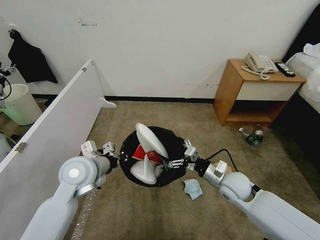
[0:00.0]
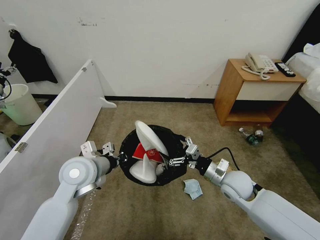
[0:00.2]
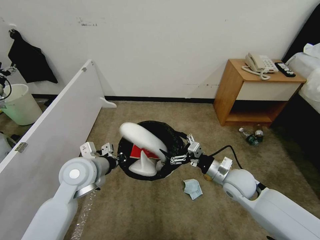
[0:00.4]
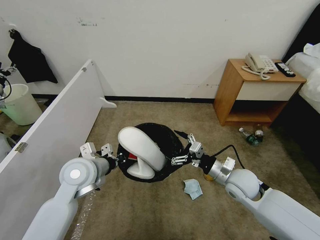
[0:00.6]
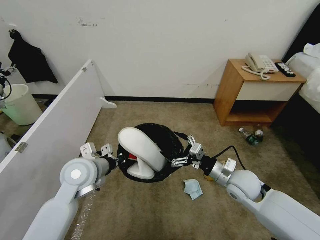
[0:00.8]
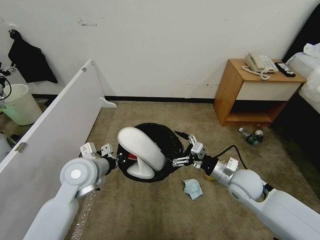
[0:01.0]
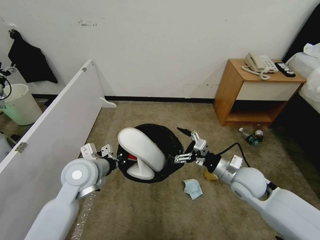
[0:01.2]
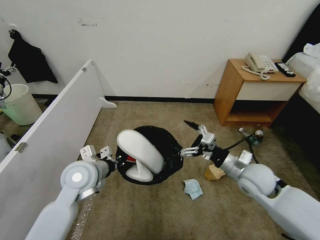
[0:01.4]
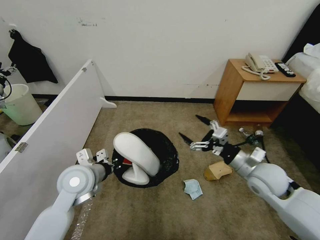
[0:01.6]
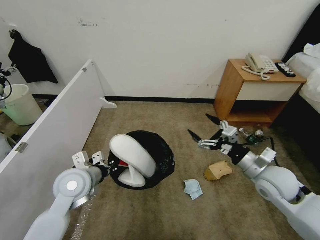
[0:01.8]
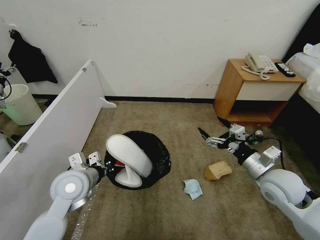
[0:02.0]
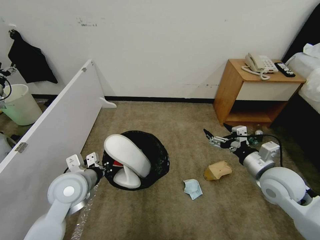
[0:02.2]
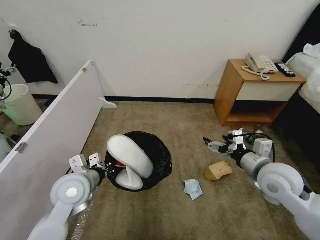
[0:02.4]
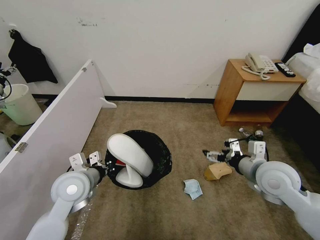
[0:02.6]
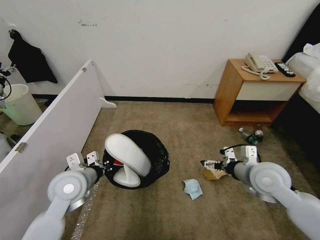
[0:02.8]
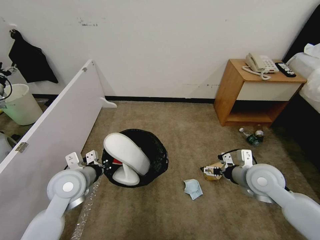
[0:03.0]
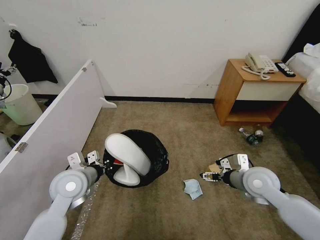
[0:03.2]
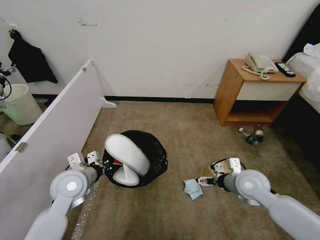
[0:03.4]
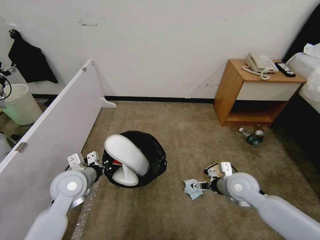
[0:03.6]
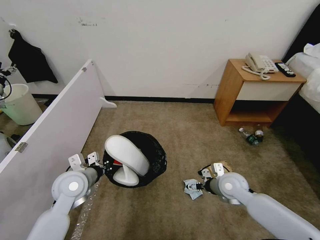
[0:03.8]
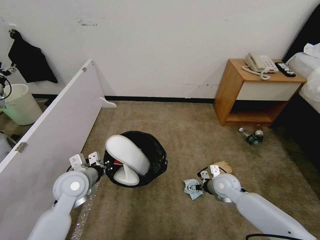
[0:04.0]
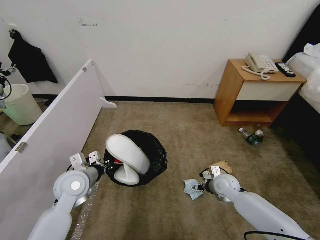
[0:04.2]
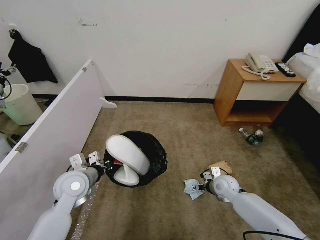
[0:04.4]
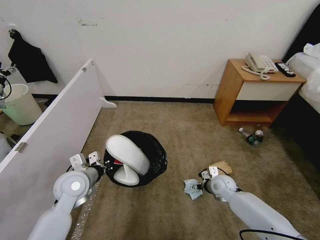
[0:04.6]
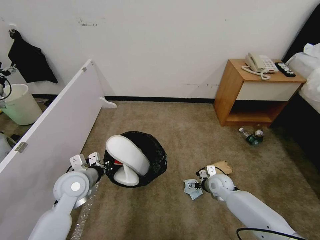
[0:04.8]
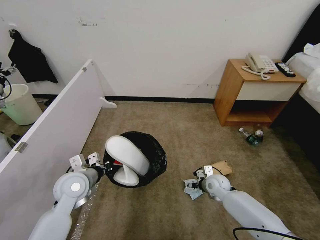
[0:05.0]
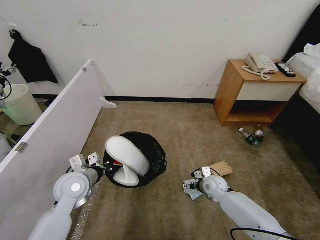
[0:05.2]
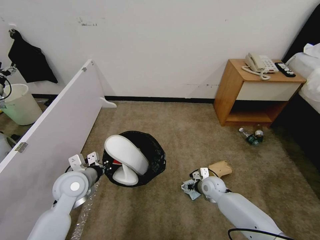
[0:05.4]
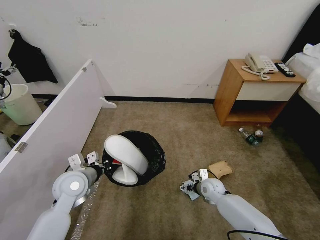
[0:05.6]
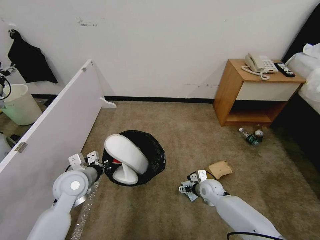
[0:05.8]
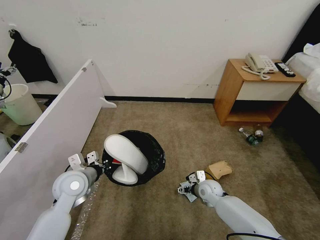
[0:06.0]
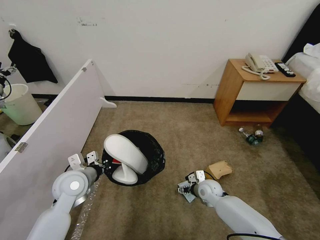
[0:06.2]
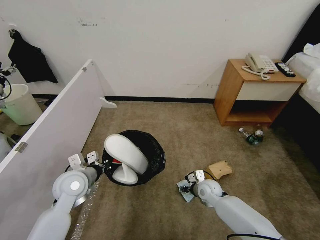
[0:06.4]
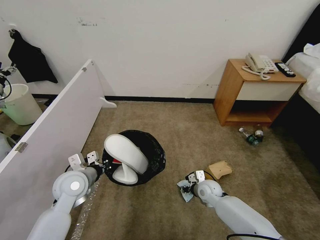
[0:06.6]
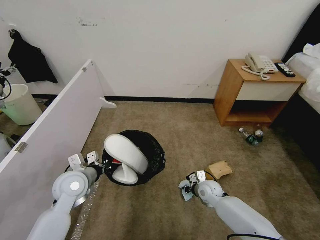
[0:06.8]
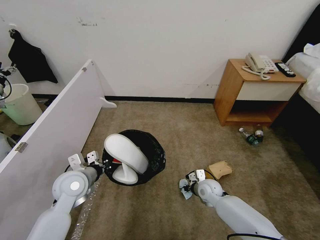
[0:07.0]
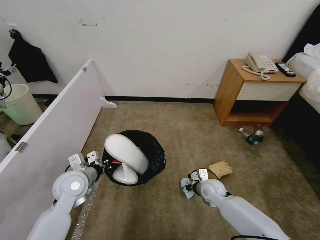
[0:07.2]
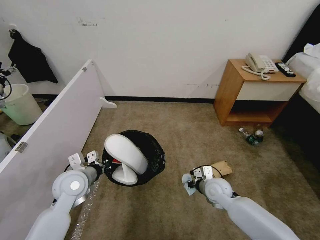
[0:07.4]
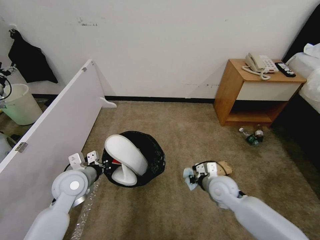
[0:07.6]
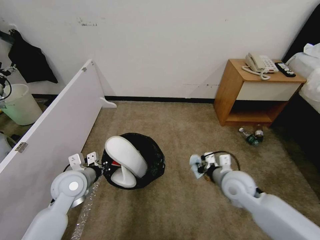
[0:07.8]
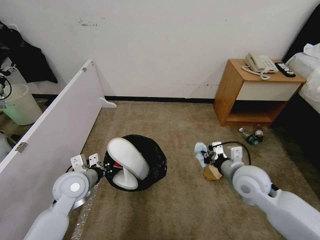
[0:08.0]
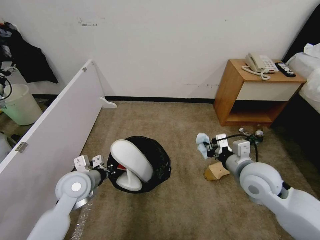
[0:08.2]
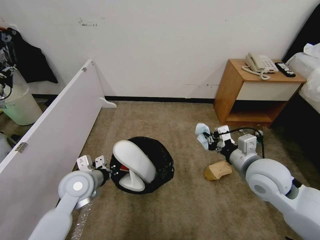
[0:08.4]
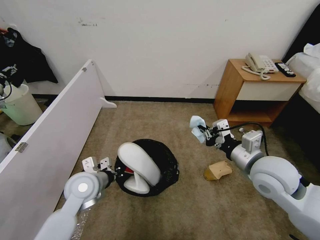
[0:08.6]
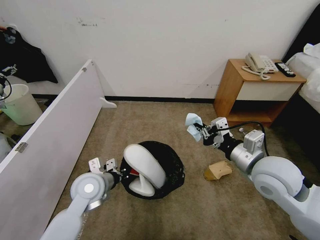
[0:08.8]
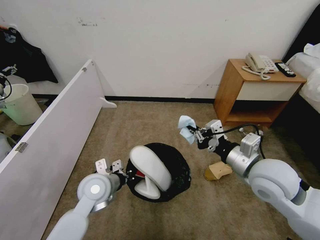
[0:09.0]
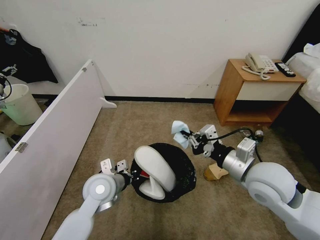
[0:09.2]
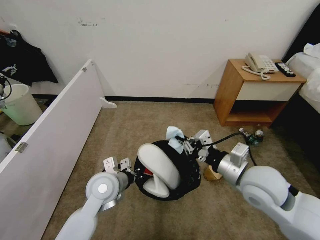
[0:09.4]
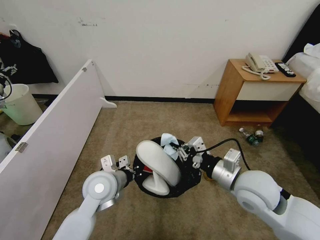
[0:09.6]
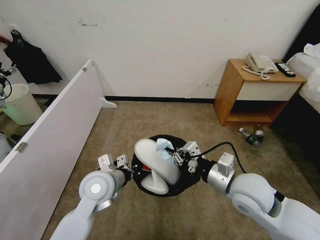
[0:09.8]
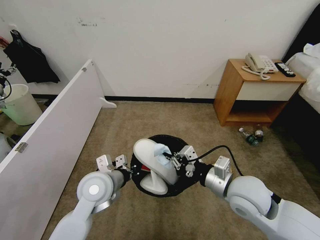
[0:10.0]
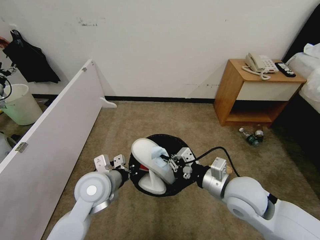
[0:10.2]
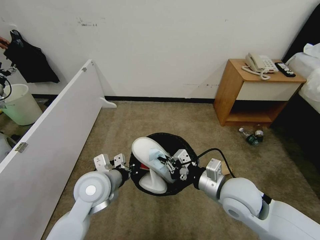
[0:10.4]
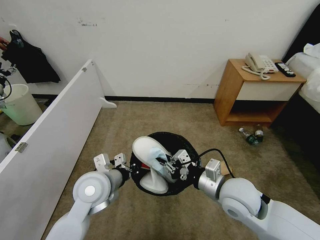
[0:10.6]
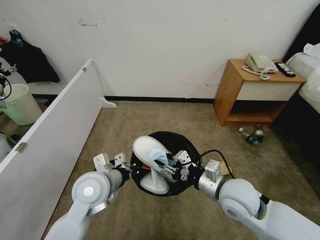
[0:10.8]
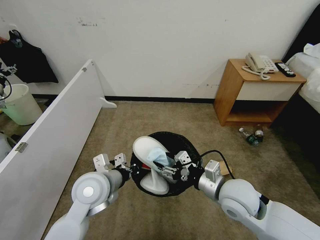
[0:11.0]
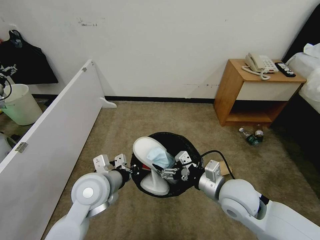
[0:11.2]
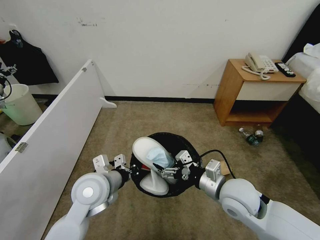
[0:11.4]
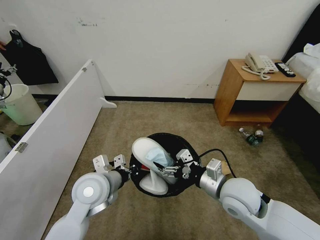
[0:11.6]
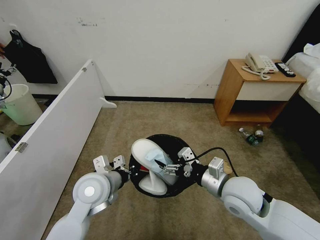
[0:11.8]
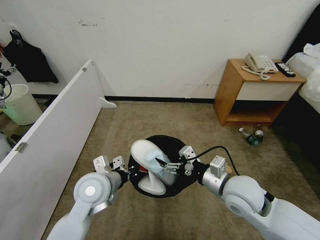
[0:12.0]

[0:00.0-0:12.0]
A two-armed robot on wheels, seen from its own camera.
Task of the whole recording: Pick up the trash bin, then pick up the garbage from the floor and place it into the trash bin.
0:00.0 to 0:01.6: The right gripper shifts about 10 cm upward and to the right.
0:03.0 to 0:04.4: The right gripper heads downward, covering approximately 20 cm.
0:04.4 to 0:06.0: The right gripper goes approximately 5 cm to the left.
0:06.0 to 0:07.6: The right gripper goes about 10 cm upward, and closes.
0:07.6 to 0:09.0: The left gripper moves to the right, about 10 cm, while the right gripper travels upward by roughly 20 cm.
0:09.0 to 0:10.4: The right gripper moves downward and to the left, some 10 cm.
0:10.4 to 0:12.0: The right gripper opens up.

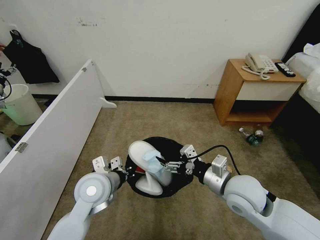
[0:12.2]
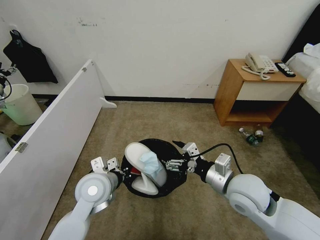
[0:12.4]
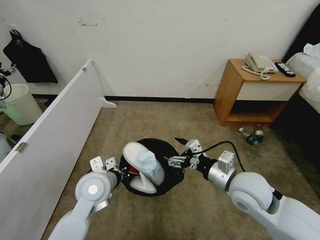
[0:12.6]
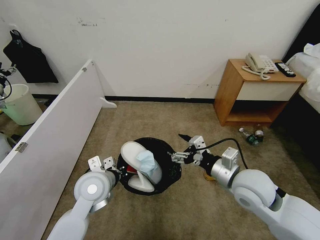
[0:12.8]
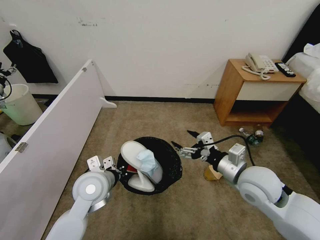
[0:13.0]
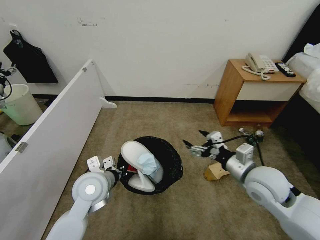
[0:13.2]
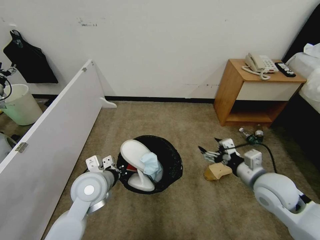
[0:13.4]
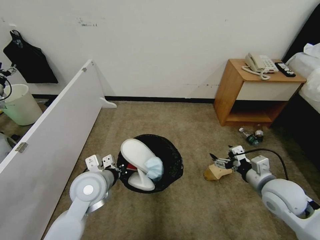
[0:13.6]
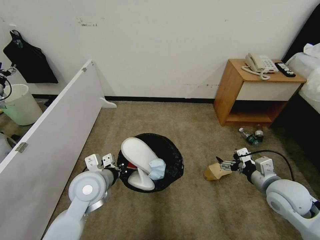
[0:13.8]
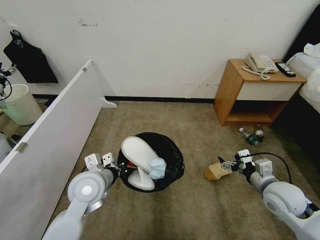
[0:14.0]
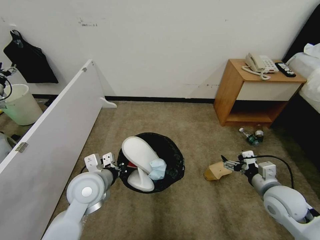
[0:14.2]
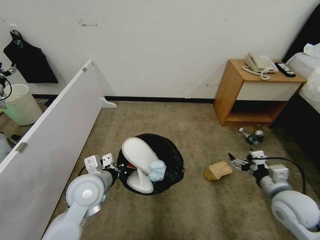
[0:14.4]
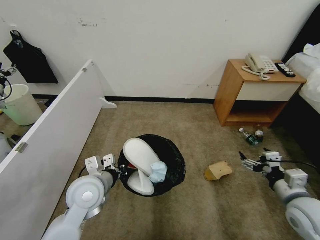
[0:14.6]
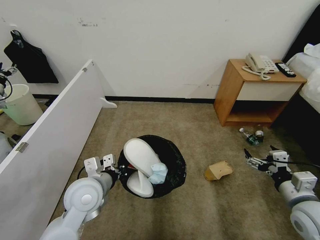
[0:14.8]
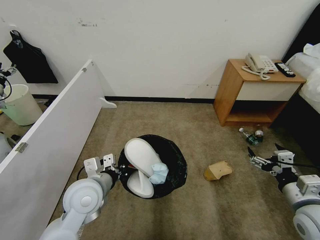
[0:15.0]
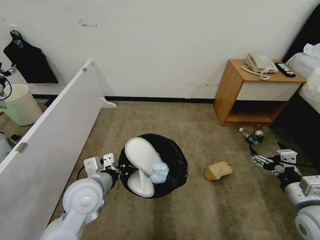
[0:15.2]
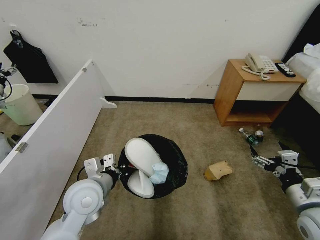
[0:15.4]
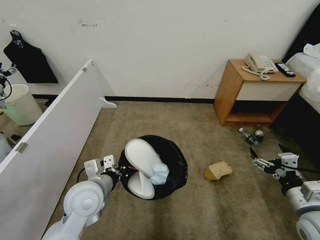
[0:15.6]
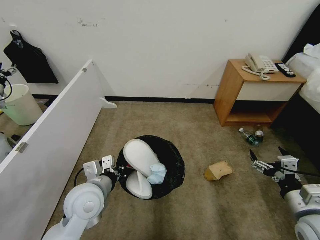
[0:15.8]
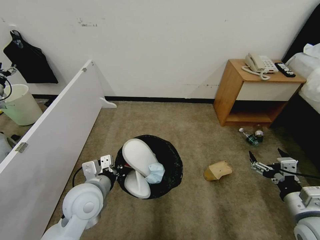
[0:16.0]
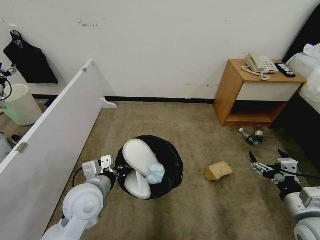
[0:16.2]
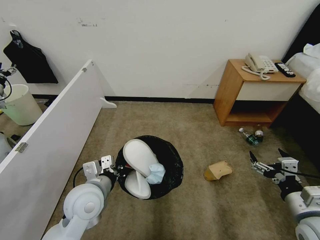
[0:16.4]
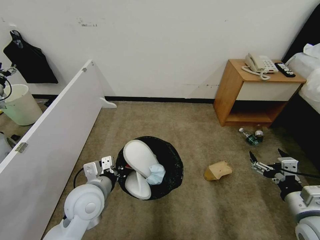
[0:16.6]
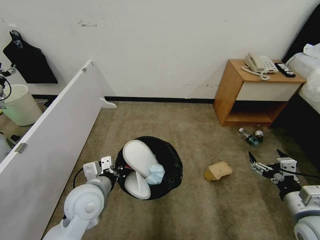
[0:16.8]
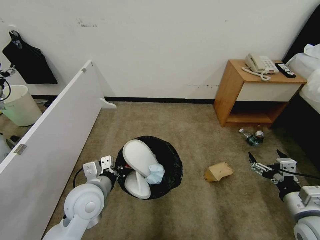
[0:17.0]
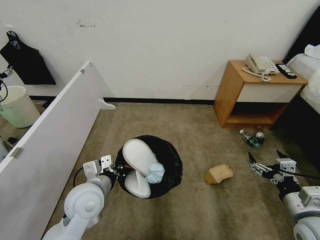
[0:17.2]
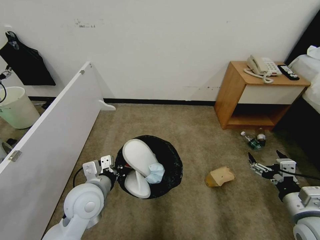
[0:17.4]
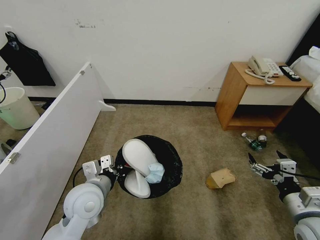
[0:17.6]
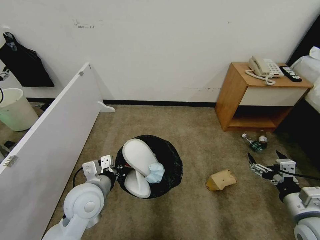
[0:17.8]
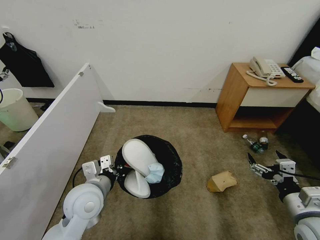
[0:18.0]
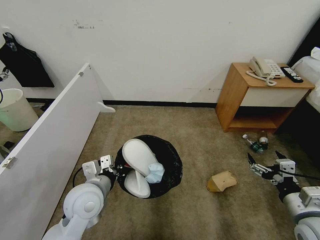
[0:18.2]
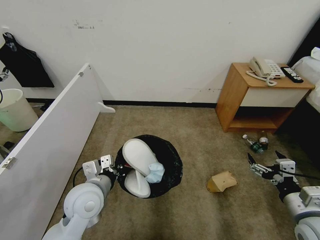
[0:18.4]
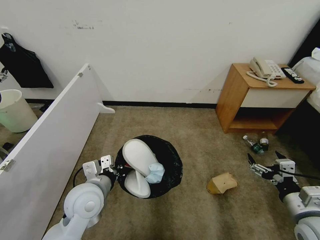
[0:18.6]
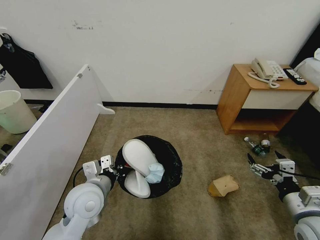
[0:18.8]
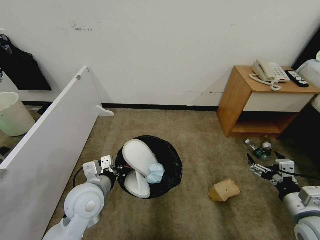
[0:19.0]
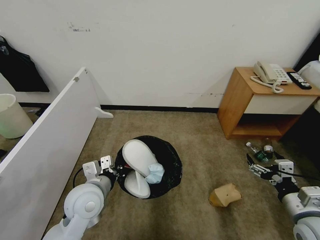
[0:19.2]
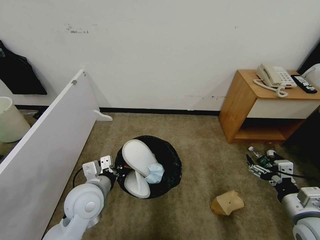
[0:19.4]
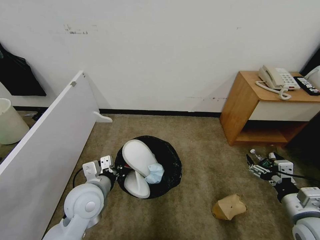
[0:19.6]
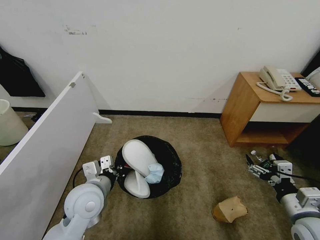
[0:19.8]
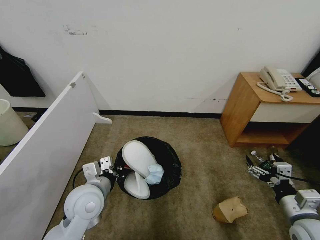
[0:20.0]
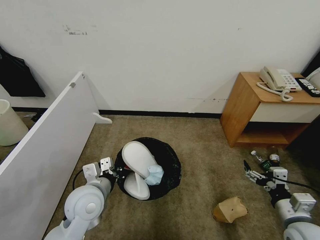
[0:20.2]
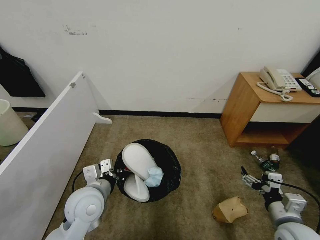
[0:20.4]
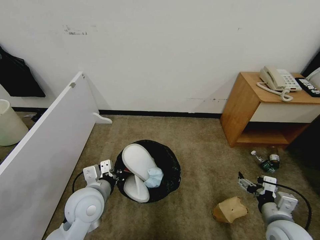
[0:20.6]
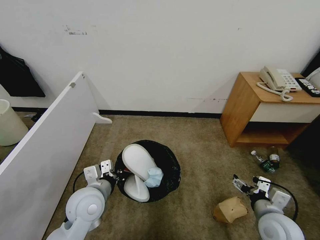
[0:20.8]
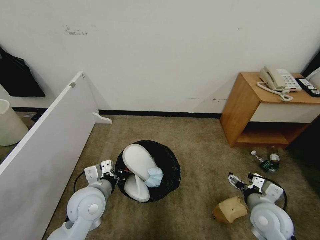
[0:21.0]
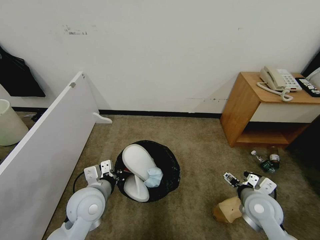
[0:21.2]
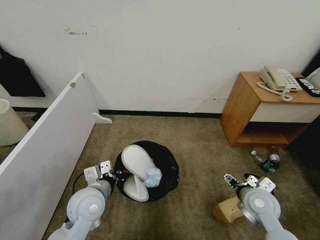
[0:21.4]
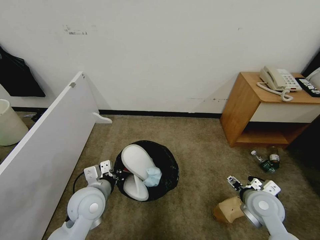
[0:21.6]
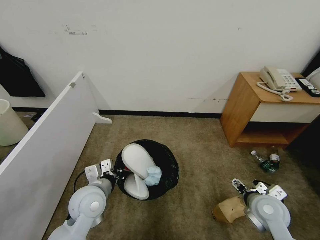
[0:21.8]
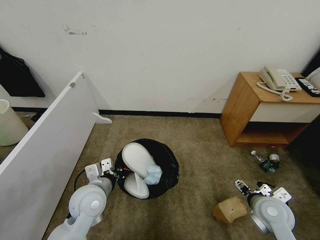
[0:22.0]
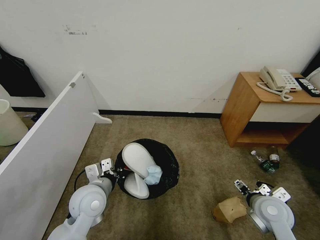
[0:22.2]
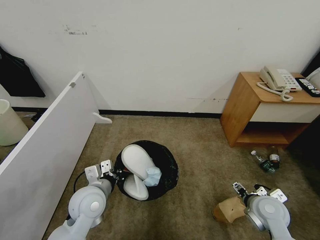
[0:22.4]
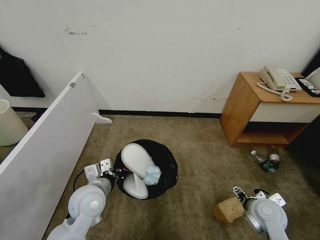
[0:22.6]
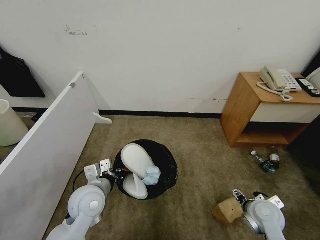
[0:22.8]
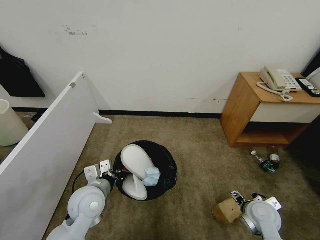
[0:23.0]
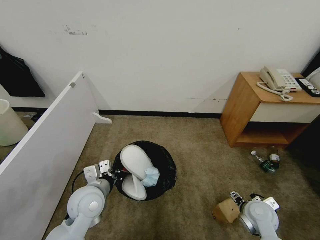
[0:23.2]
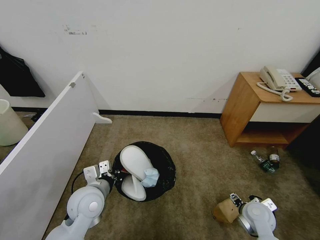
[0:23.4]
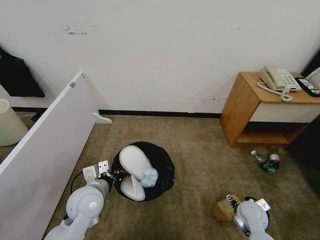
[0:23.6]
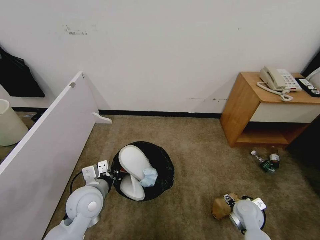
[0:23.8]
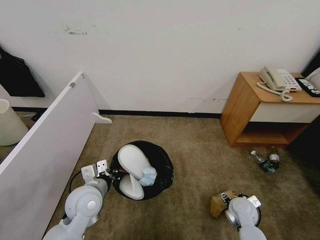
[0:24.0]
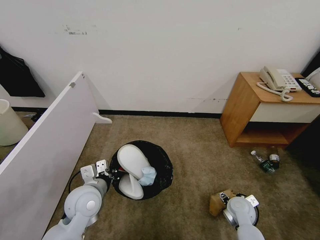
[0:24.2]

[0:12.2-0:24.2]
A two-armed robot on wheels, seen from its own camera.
Task of the whole recording: Pick up the trash bin, then pick up the garbage from the floor and place it into the trash bin.
0:12.2 to 0:13.8: The right gripper travels to the right by approximately 15 cm.
0:13.8 to 0:15.2: The right gripper moves backward, about 10 cm.
0:15.2 to 0:16.6: The grippers stay close to where they were, moving slightly.
0:16.6 to 0:18.2: Both grippers stay about where they are.
0:19.8 to 0:21.2: The right gripper shifts roughly 10 cm forward and to the left.
0:22.6 to 0:24.2: The right gripper is displaced downward by roughly 10 cm.
